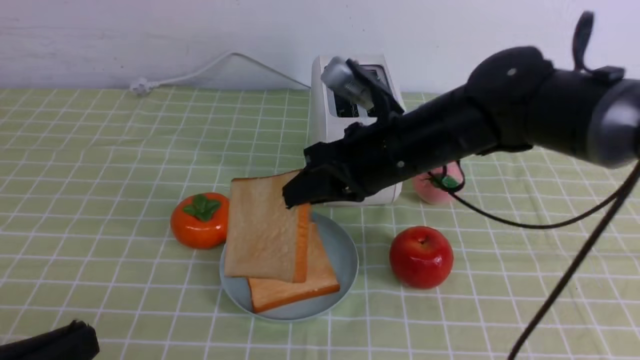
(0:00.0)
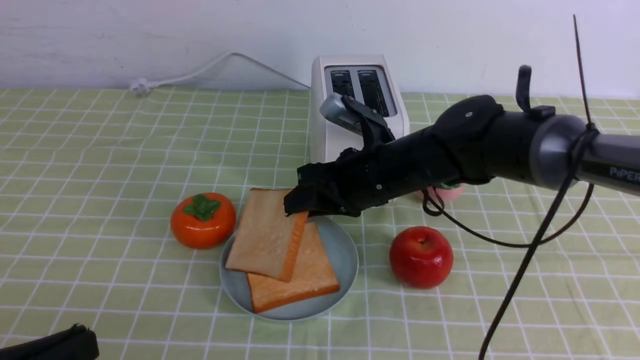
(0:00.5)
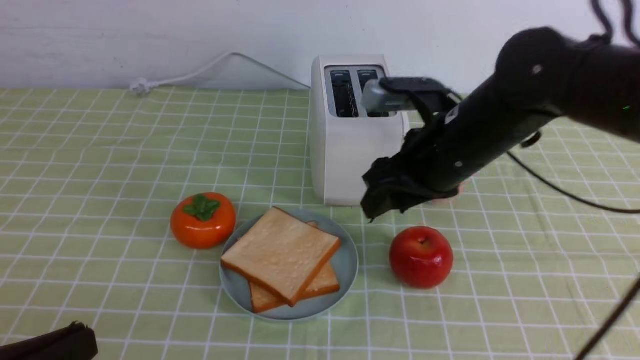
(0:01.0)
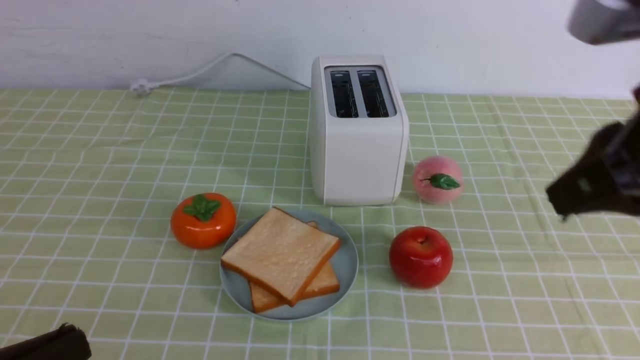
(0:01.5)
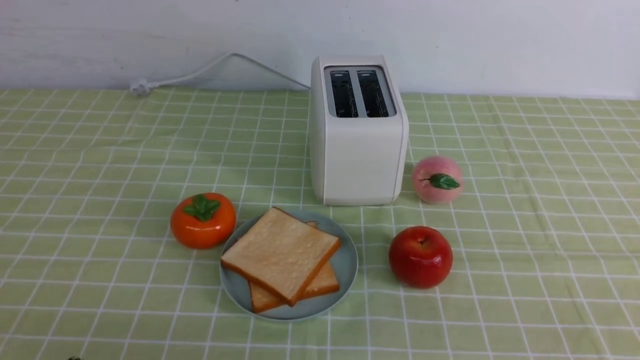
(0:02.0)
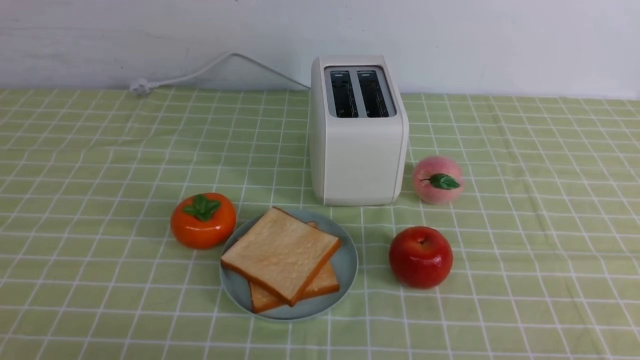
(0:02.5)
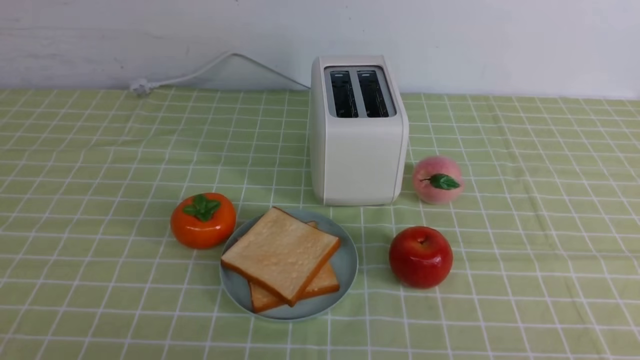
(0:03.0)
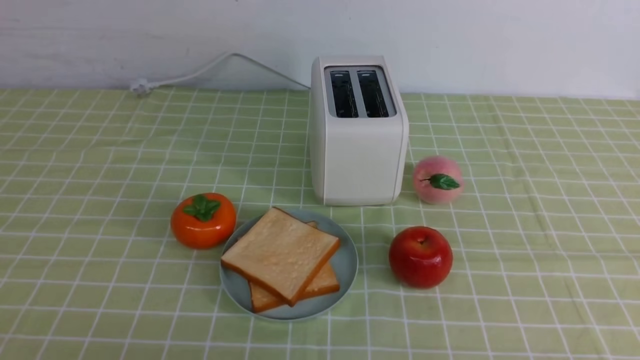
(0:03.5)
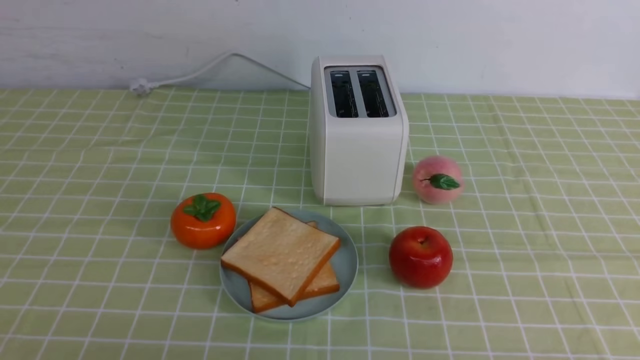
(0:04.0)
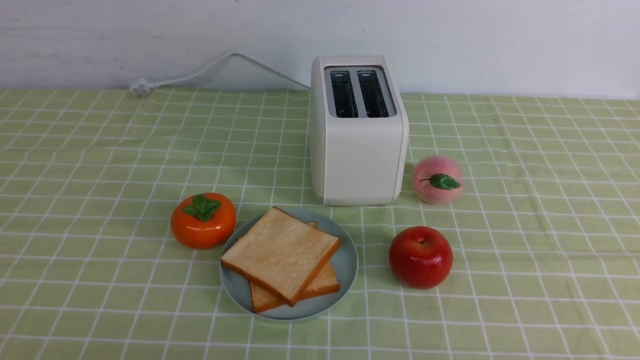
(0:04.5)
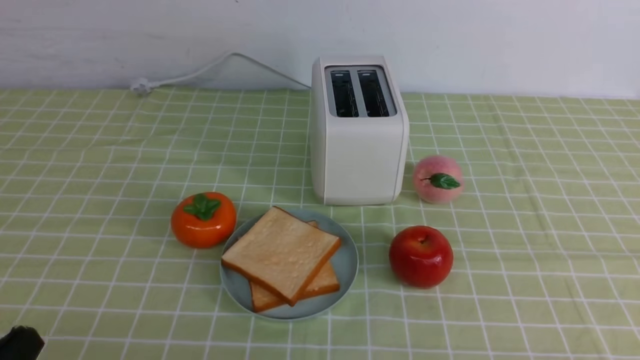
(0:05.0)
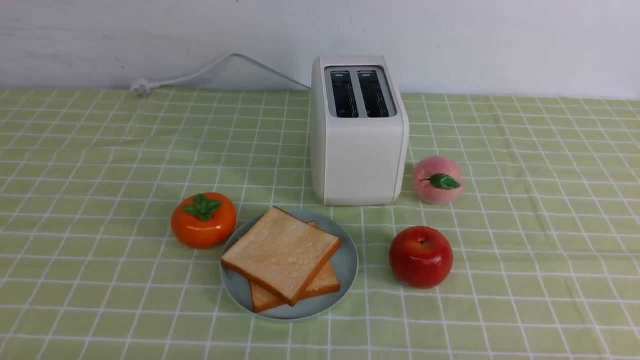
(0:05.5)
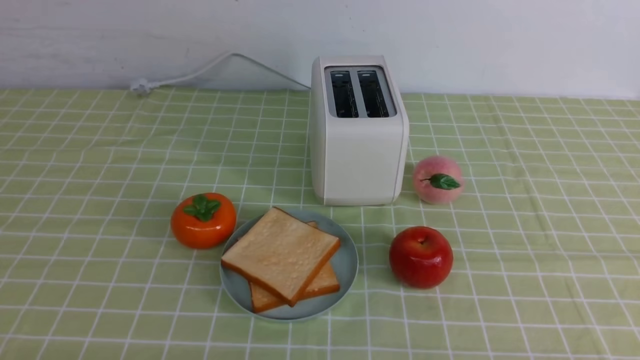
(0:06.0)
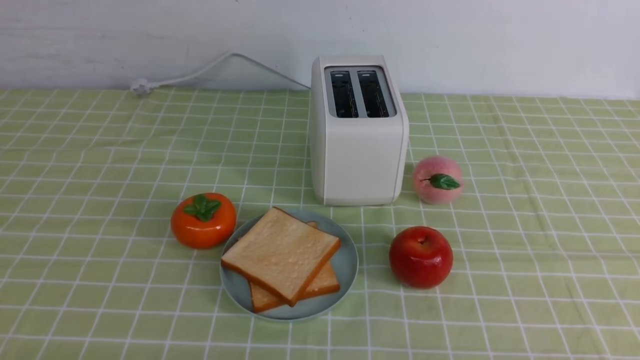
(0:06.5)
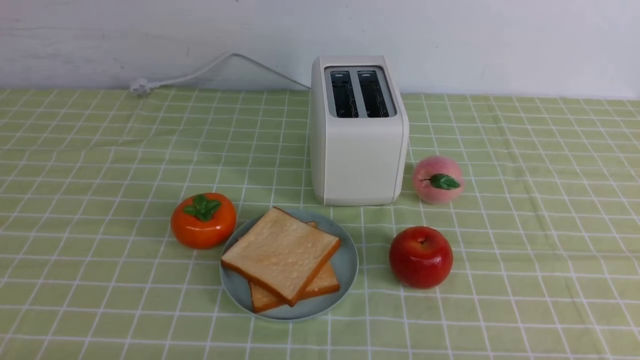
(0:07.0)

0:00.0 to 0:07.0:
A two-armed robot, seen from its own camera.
Task of the whole recording: take toasted bread from bread machine on green coffee tablecloth place on plate.
Step, 0:00.0 to 0:01.0: use the right arm to put a slice of bread into the plate.
0:00.0 to 0:02.0: The right gripper heads backward and to the right, covering roughly 35 cm, and opens, then closes once more.
